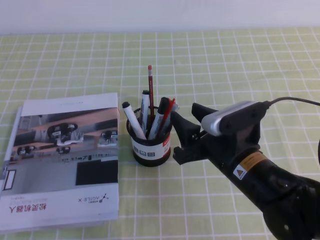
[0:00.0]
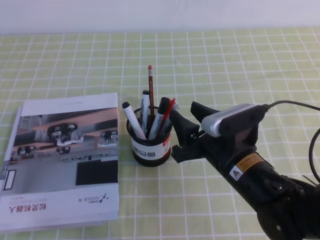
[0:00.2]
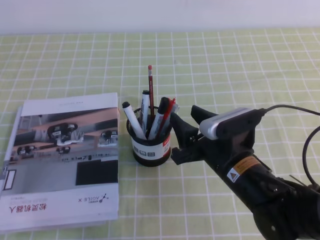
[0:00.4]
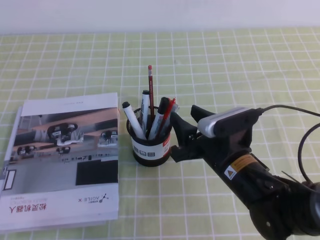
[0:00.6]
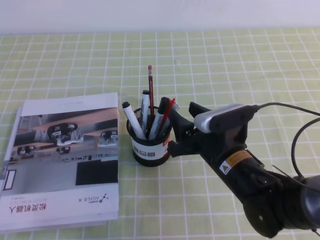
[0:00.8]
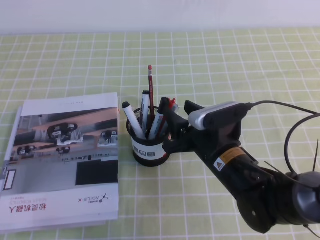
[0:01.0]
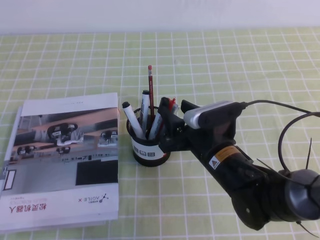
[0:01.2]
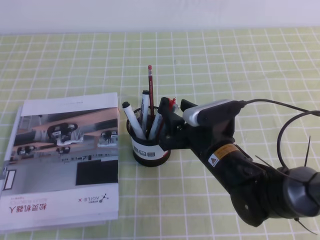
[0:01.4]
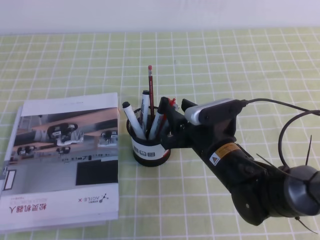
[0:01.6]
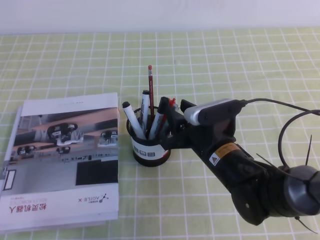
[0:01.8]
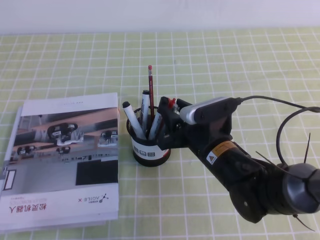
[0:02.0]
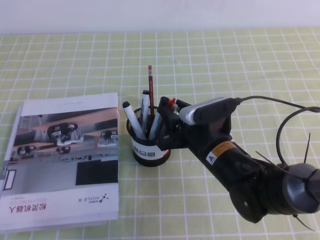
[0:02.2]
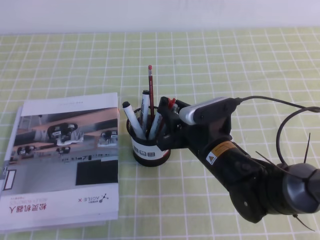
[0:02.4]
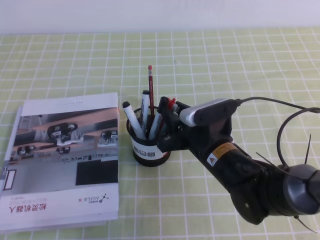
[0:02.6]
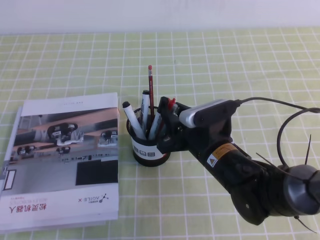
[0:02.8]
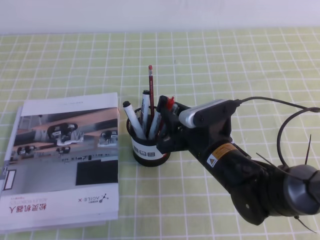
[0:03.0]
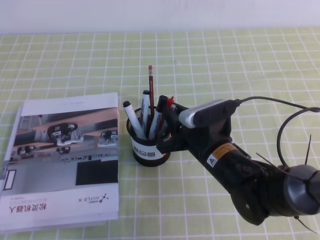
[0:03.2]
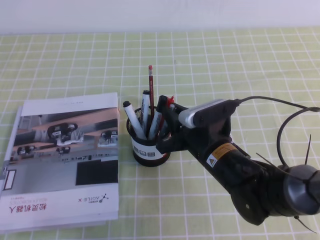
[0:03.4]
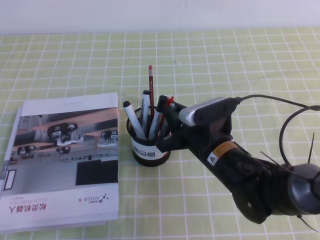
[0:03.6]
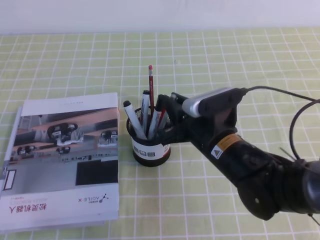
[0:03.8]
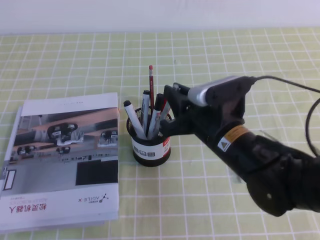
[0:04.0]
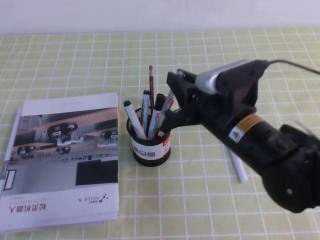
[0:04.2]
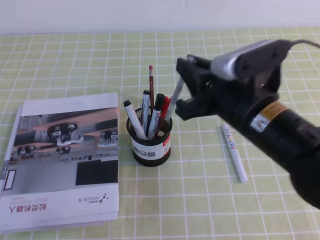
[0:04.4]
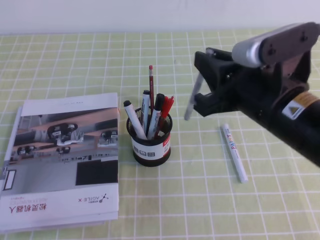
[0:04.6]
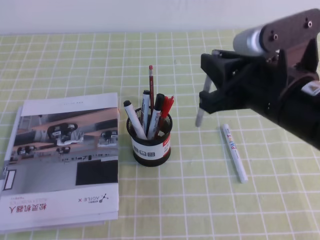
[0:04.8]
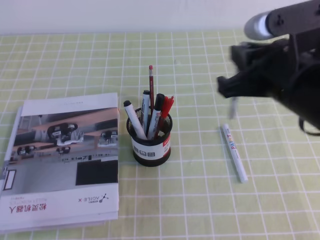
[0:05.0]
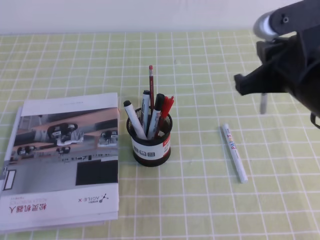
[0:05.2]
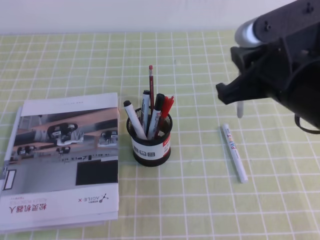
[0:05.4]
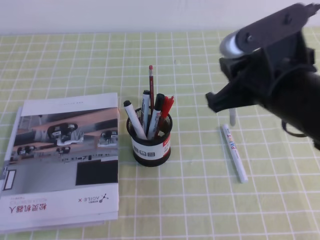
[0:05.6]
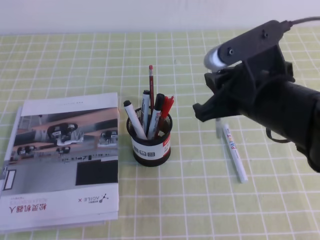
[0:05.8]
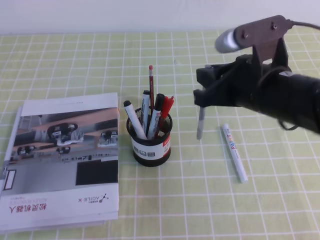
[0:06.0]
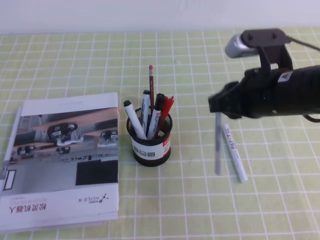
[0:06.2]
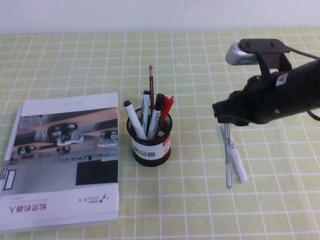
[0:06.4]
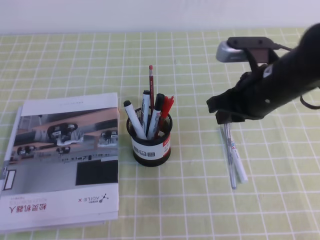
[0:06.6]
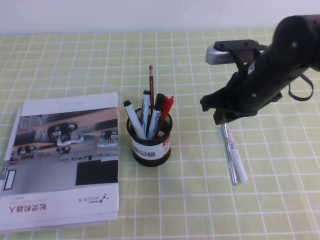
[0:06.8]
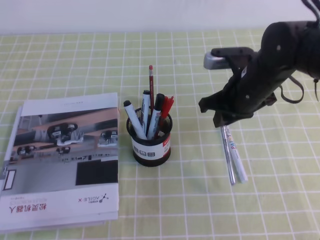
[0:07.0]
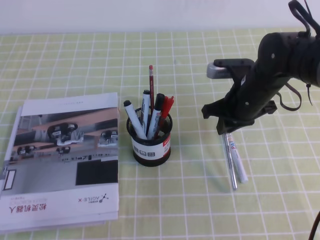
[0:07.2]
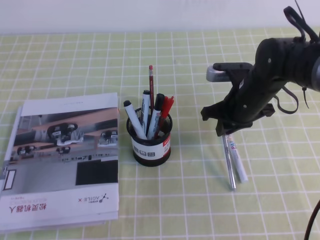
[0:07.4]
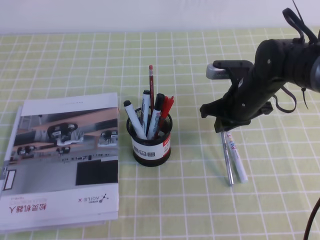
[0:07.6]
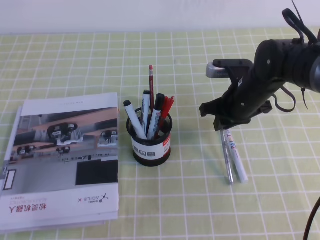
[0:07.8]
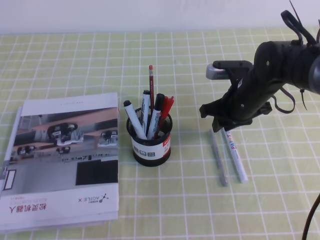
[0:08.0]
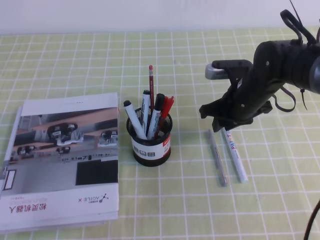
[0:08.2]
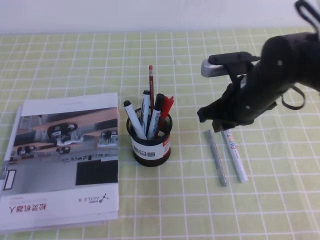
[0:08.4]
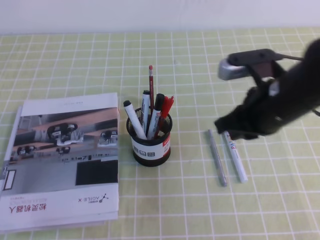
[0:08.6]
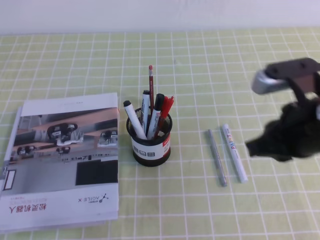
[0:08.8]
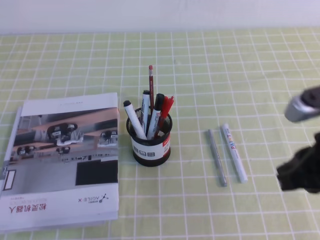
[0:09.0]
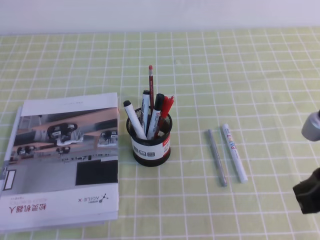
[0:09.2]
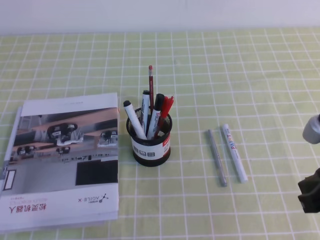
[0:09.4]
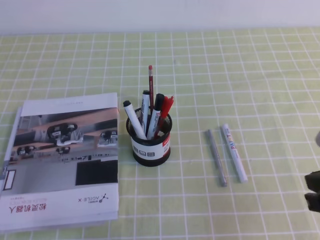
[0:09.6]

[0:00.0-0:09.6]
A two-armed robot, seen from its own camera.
0:00.0 to 0:01.6: The right gripper shifts by approximately 5 cm.
0:01.6 to 0:03.2: The right gripper closes up.
0:03.2 to 0:04.8: The right gripper moves upward and to the right, approximately 20 cm.
0:04.8 to 0:06.4: The right gripper heads forward and downward, covering approximately 10 cm.
0:06.4 to 0:08.0: The right gripper travels forward and downward by about 15 cm.
0:08.0 to 0:09.6: The right gripper heads backward and to the right, covering roughly 25 cm, and closes its fingers.

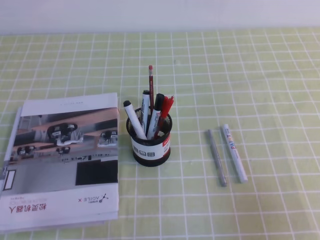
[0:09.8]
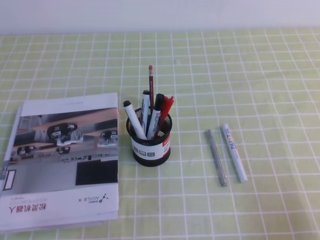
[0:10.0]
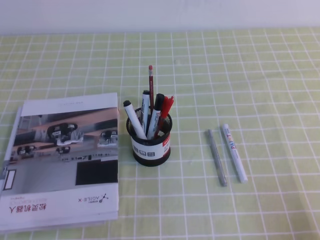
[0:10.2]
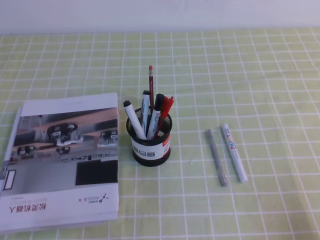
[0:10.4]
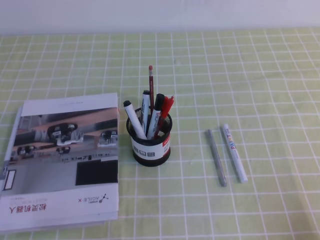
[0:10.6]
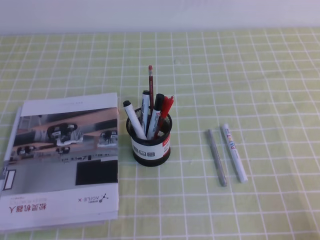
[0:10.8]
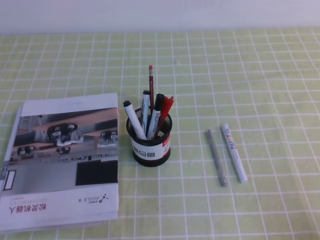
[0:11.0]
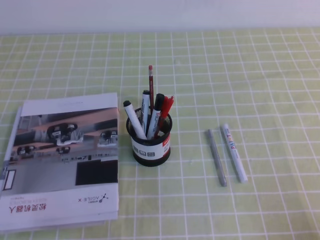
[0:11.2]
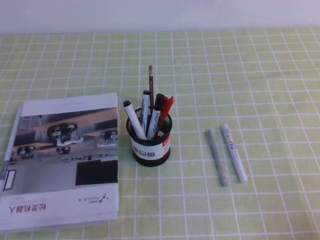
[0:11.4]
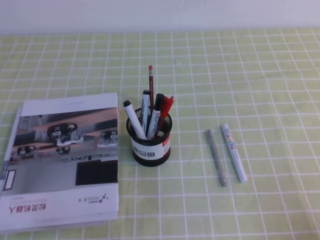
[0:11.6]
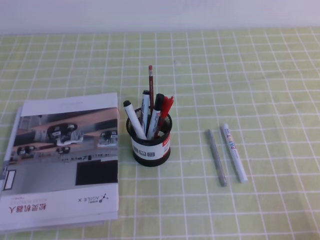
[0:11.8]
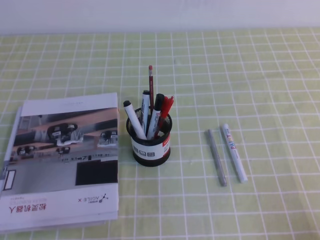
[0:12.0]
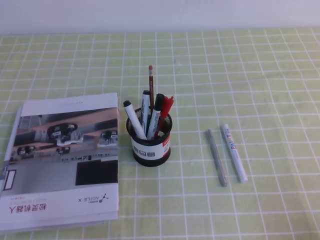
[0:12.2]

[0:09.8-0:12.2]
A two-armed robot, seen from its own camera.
0:09.8 to 0:11.0: The right gripper shifts approximately 10 cm downward and backward.
0:11.0 to 0:12.2: Both grippers stay about where they are.
